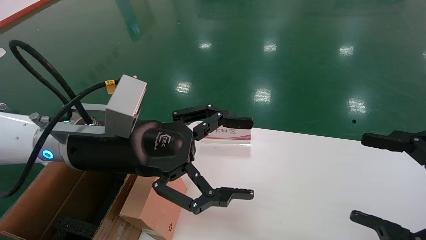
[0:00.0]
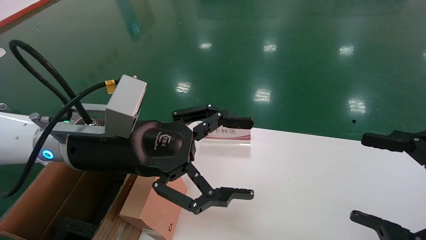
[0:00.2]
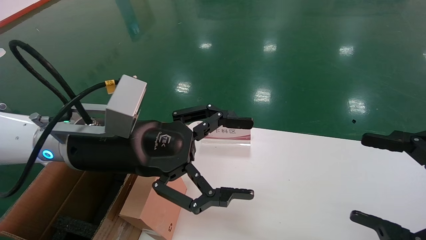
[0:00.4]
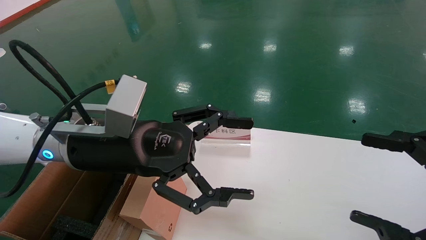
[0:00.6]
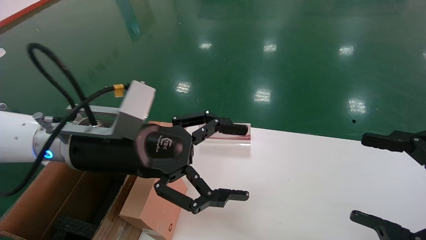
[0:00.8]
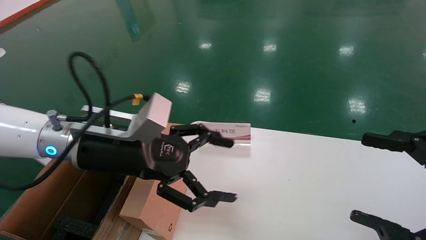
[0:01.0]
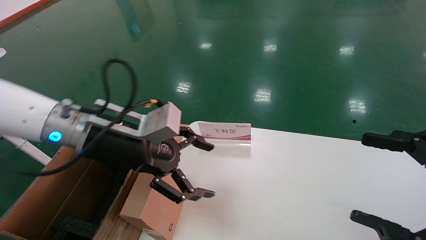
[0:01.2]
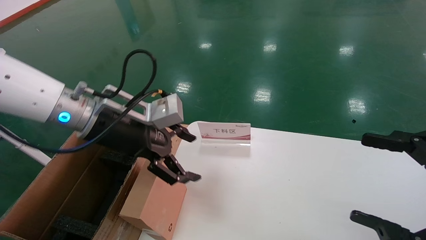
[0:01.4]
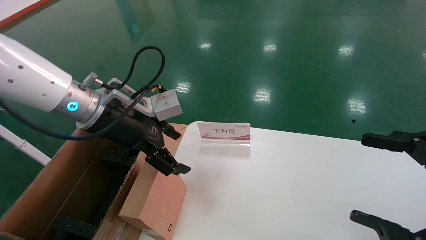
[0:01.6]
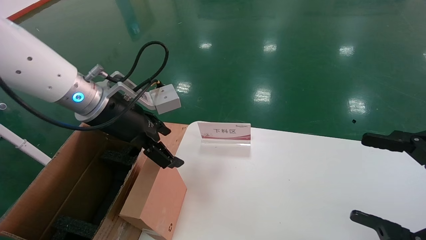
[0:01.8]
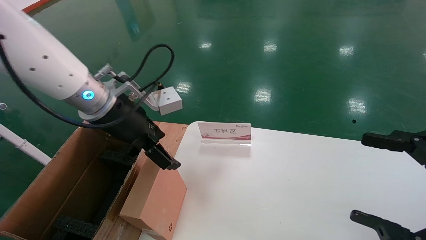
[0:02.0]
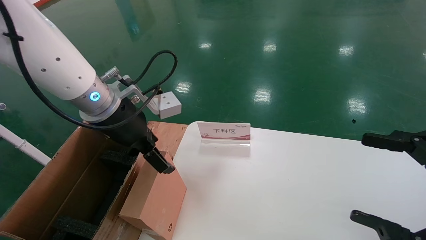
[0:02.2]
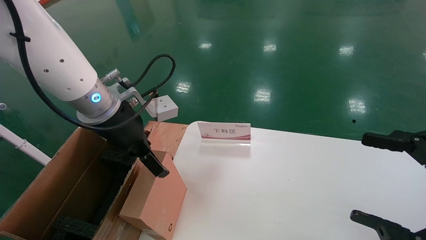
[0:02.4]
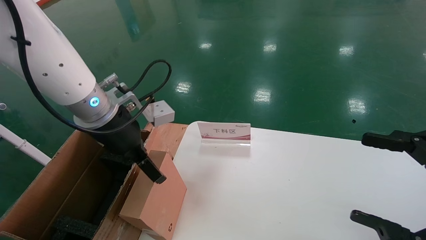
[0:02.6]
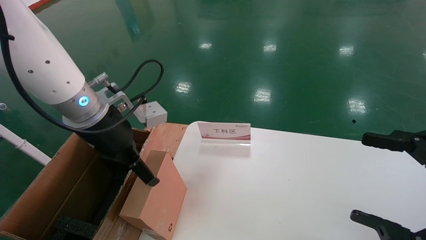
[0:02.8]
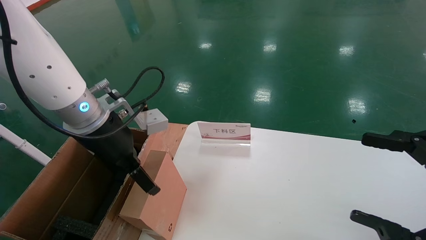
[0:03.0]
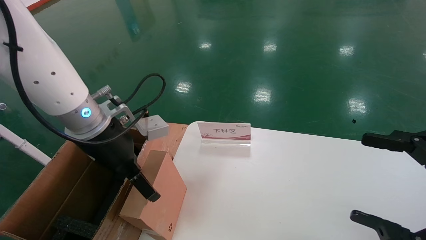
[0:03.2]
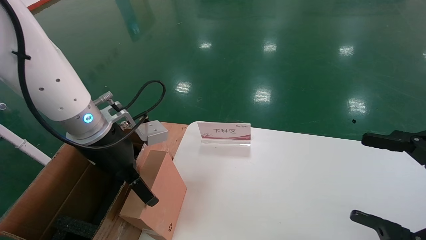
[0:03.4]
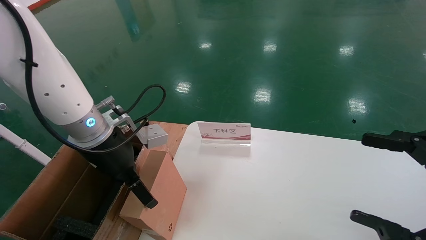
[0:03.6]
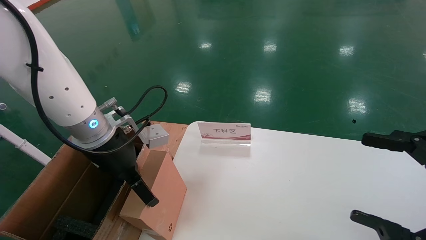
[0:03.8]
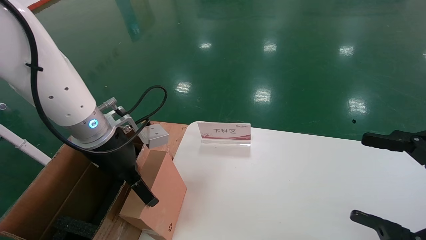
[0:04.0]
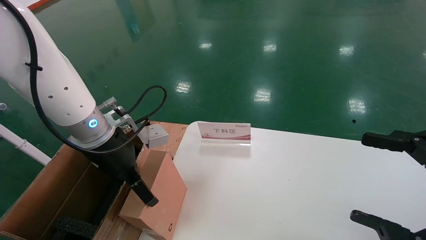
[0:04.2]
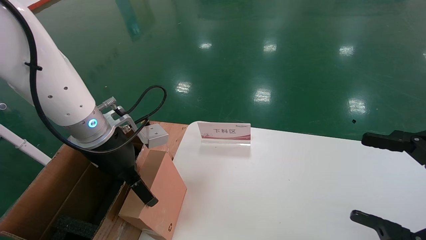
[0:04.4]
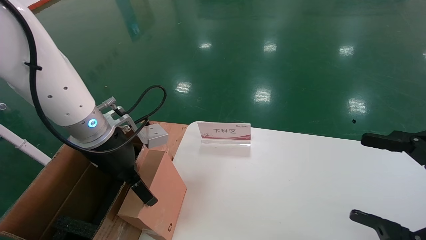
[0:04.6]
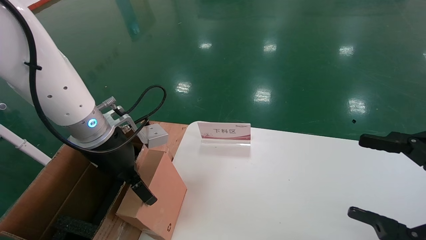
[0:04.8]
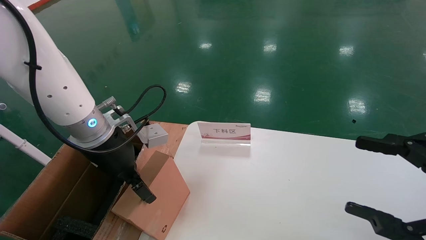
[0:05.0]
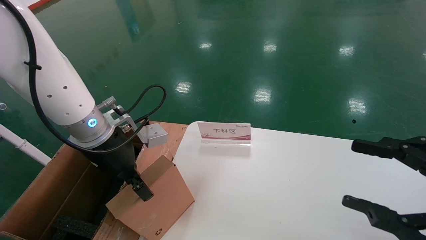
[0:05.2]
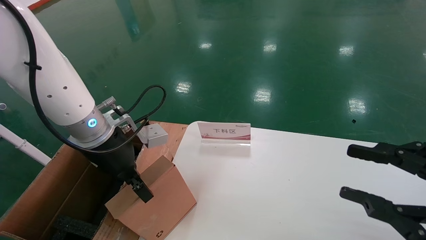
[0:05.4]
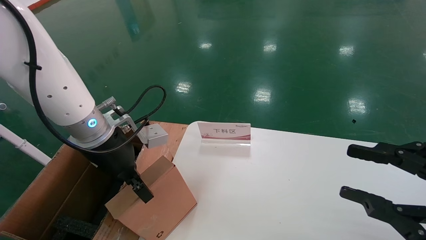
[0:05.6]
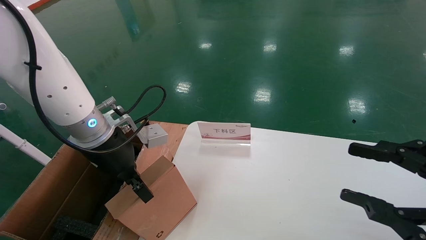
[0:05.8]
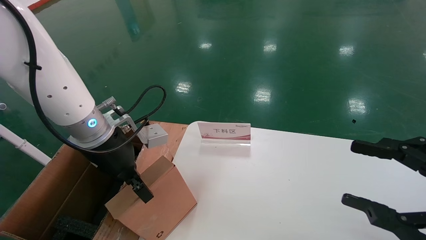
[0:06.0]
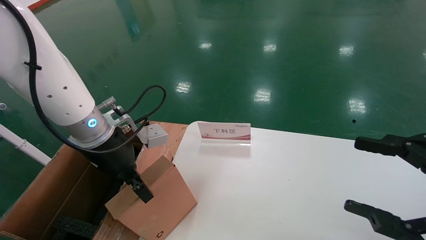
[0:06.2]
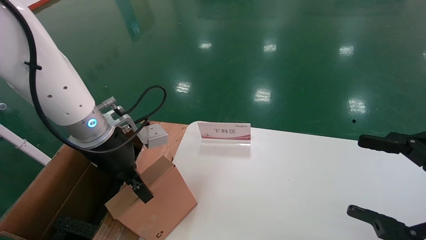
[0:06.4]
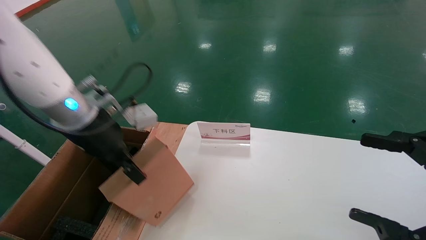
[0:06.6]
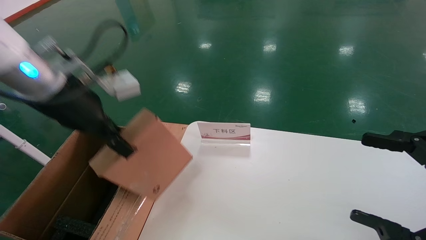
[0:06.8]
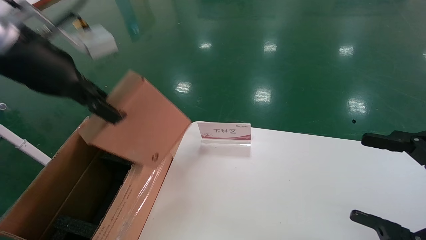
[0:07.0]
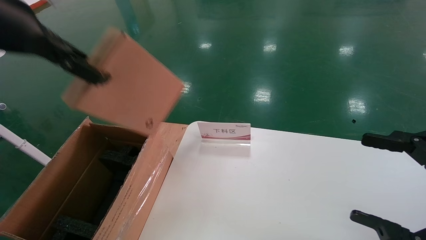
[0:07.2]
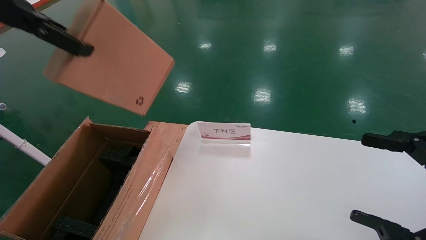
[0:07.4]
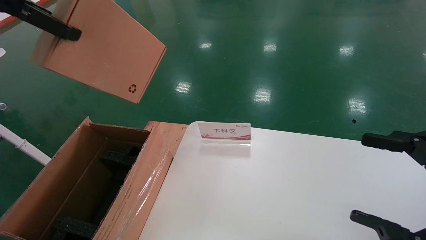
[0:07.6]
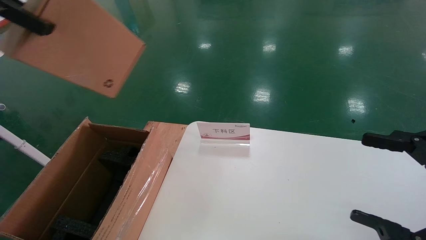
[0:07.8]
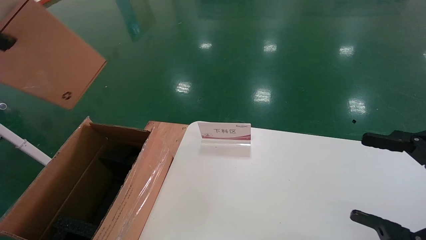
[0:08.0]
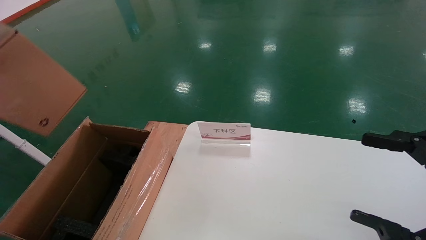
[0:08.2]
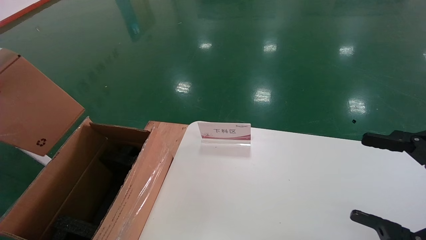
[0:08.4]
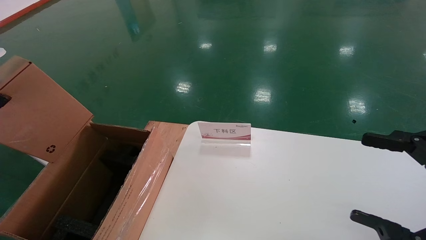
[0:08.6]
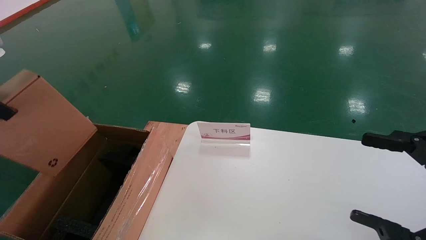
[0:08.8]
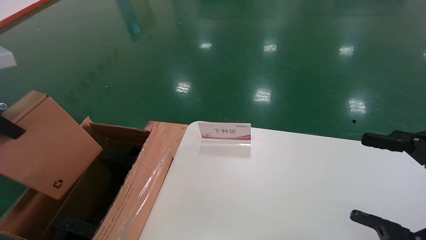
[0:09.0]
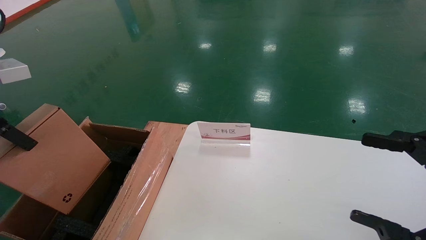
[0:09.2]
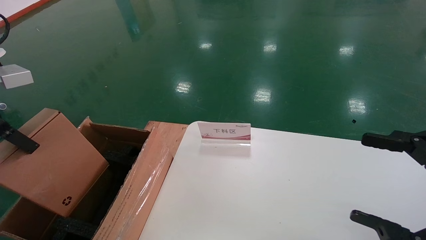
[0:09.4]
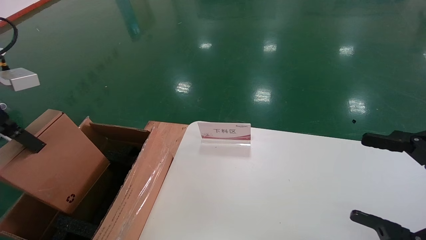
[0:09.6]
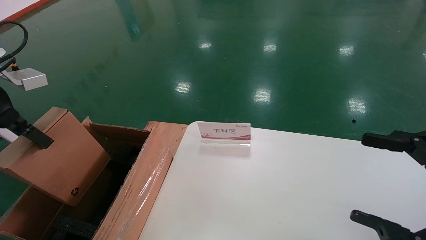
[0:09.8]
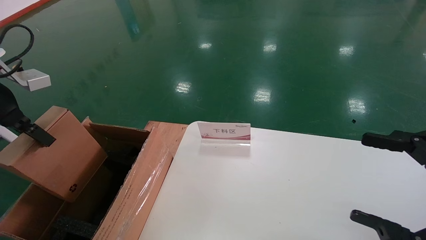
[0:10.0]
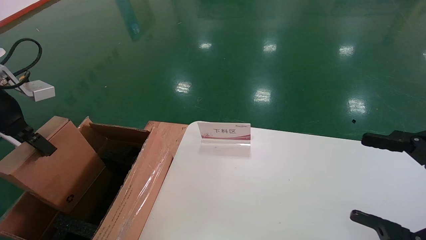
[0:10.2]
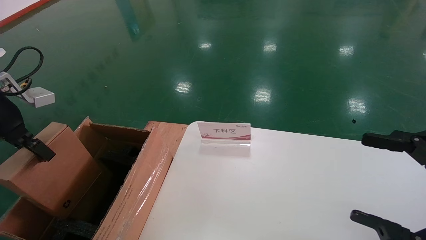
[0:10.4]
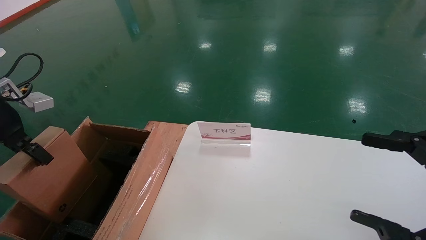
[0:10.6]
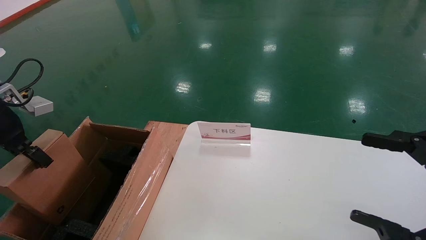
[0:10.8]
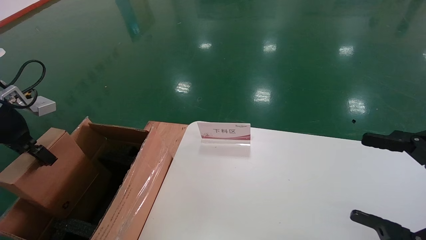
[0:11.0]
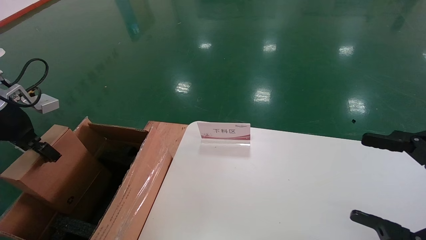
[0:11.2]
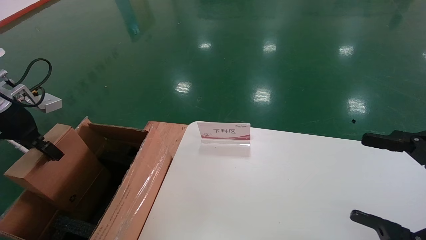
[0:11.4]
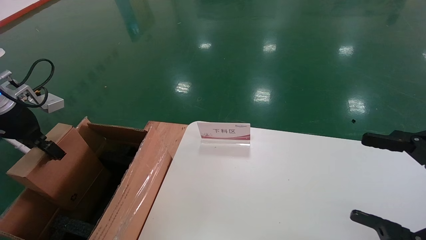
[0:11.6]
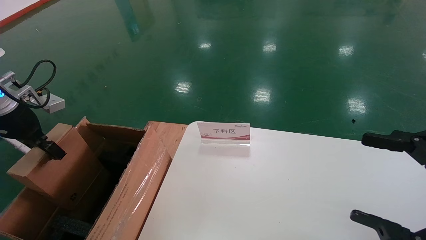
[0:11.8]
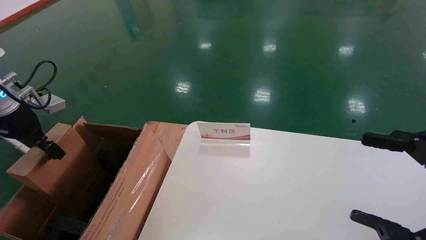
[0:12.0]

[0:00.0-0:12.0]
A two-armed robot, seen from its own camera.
Task of the whole recording: pick up the small cardboard box and load it into the large cardboard box.
Step, 0:01.0 to 0:05.6: Pick up the mouse and power cord box.
0:00.0 to 0:01.6: The left gripper is displaced forward by some 5 cm.
0:03.0 to 0:04.4: The grippers make only small movements.
0:04.4 to 0:06.0: The right gripper closes up; the left gripper closes.
0:06.0 to 0:07.6: The left gripper heads upward, to the left and backward, covering approximately 30 cm, while the right gripper opens.
0:07.6 to 0:09.0: The left gripper shifts roughly 15 cm downward and to the left.
0:09.0 to 0:10.4: The left gripper goes some 10 cm downward and forward.
0:10.4 to 0:12.0: The left gripper moves approximately 5 cm.

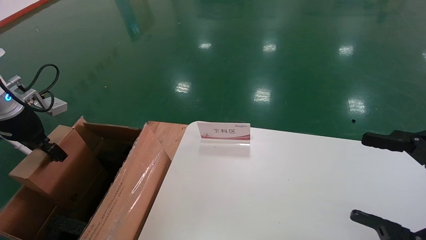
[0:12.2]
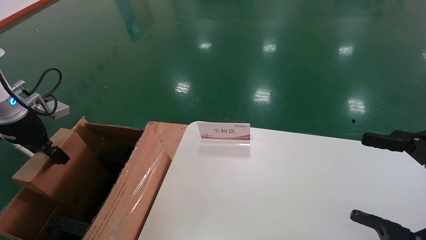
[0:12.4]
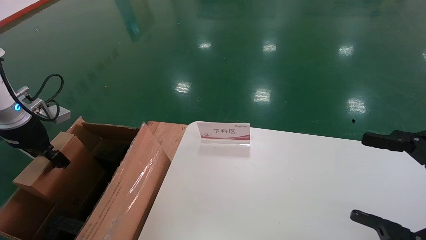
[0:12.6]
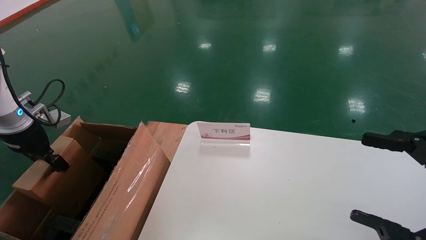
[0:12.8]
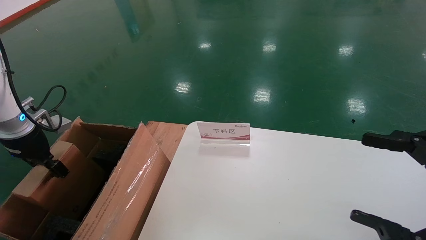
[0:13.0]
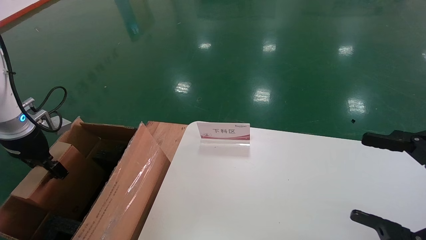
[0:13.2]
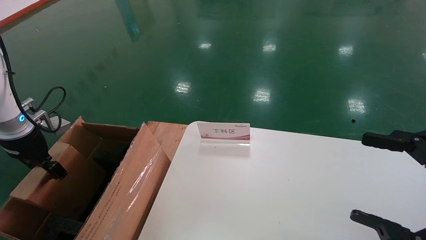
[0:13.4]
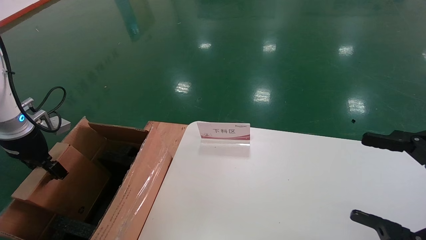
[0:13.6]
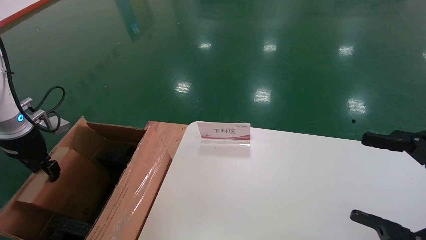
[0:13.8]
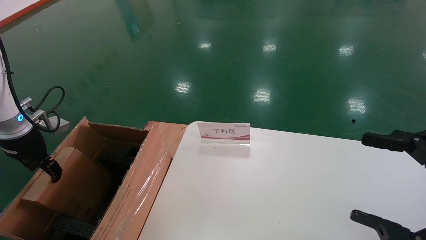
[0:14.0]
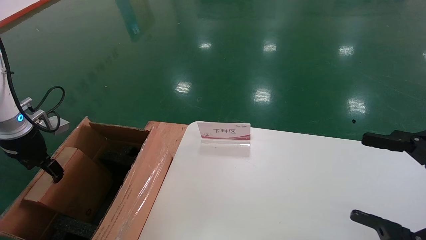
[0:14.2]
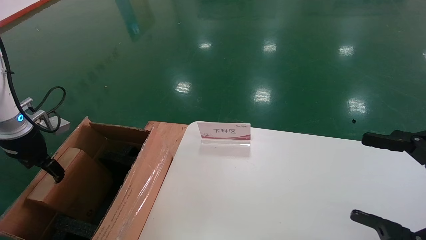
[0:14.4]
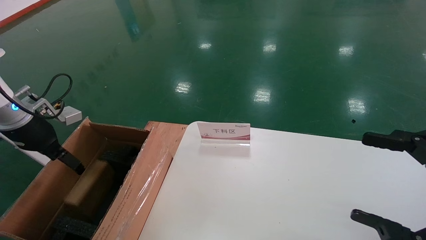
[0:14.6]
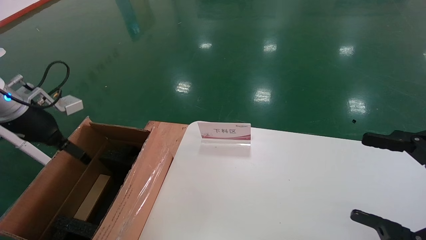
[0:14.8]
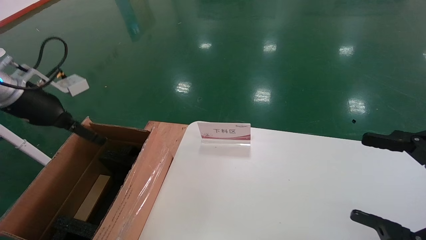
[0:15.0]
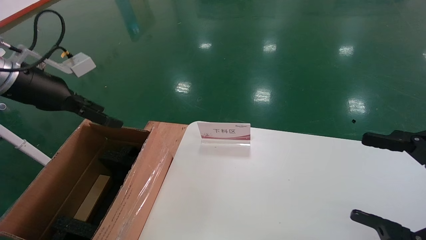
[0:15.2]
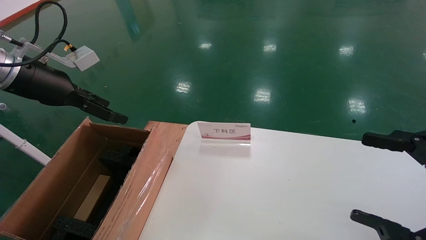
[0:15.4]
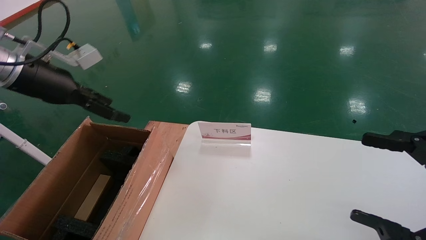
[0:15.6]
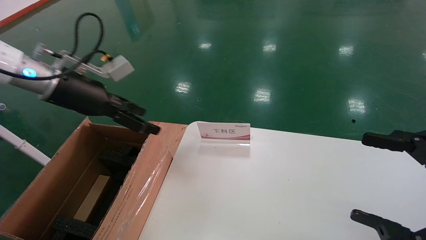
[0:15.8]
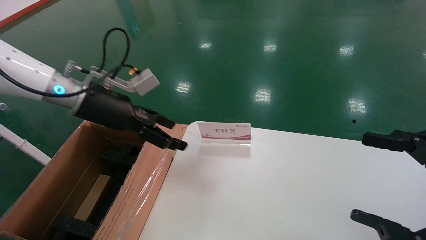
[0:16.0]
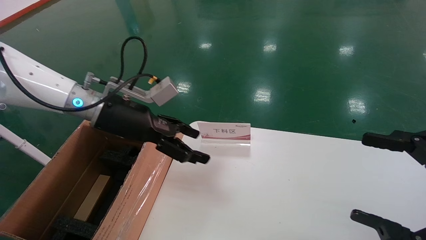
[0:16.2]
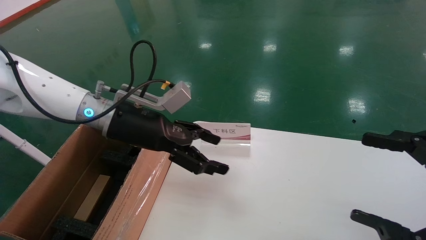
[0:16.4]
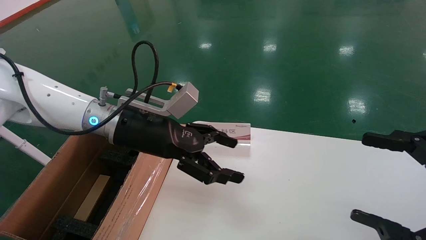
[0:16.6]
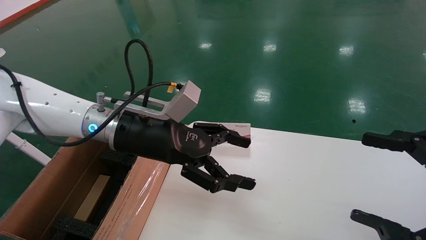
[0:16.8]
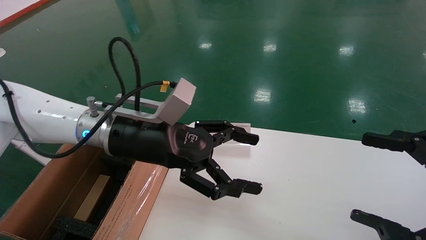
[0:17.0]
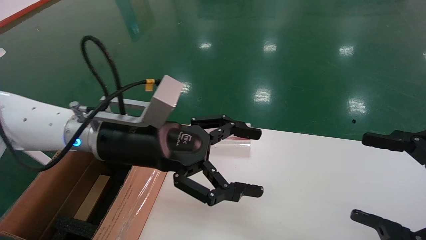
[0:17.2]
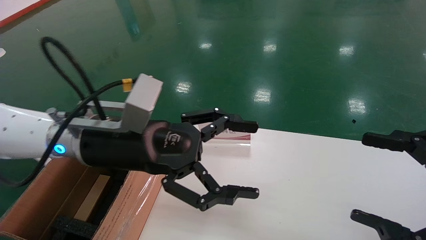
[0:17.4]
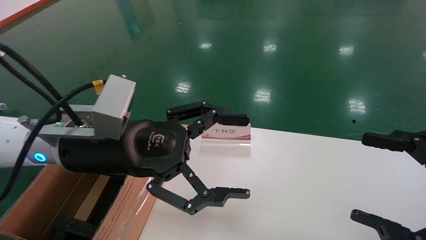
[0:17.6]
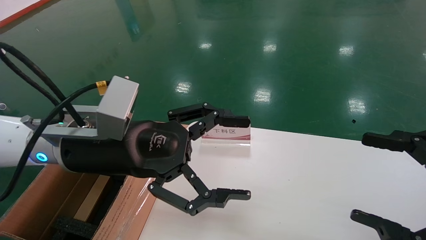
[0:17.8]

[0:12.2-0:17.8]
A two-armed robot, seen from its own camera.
Task of the whole recording: pick up the small cardboard box and load it into the large cardboard box.
Step, 0:12.2 to 0:14.8: Place the mouse and power cord box into the case.
0:12.2 to 0:13.6: The grippers move only a little.
0:13.6 to 0:15.0: The left gripper goes some 10 cm upward, and opens up.
0:15.0 to 0:16.4: The left gripper goes approximately 20 cm to the right.
0:16.4 to 0:17.8: The left gripper goes about 10 cm backward.
